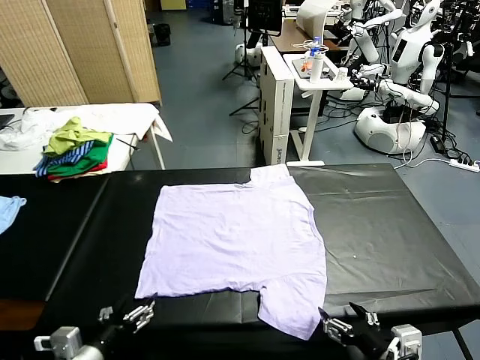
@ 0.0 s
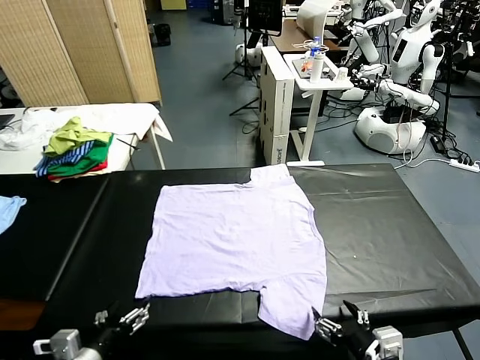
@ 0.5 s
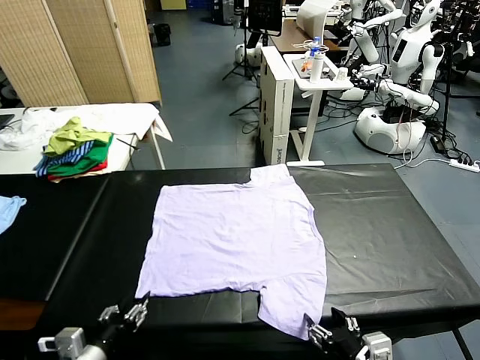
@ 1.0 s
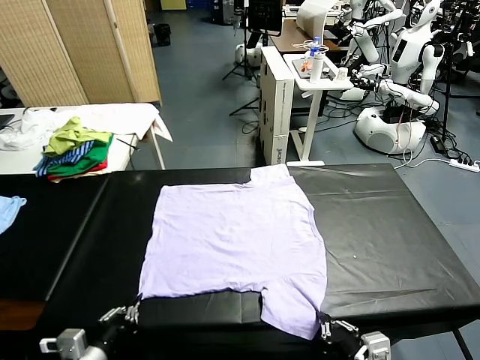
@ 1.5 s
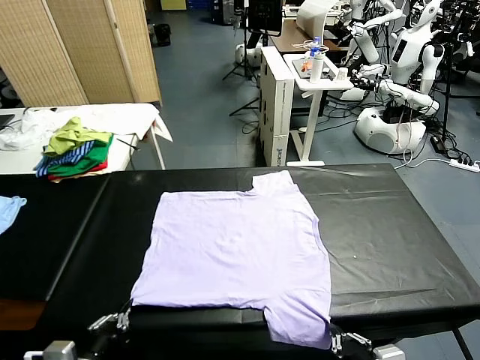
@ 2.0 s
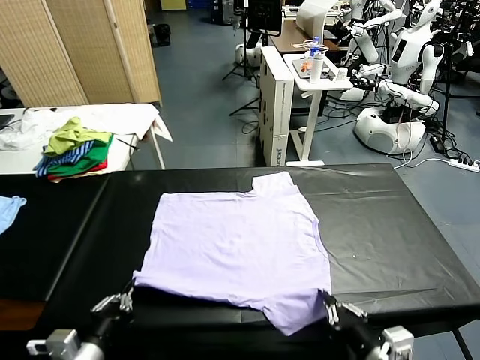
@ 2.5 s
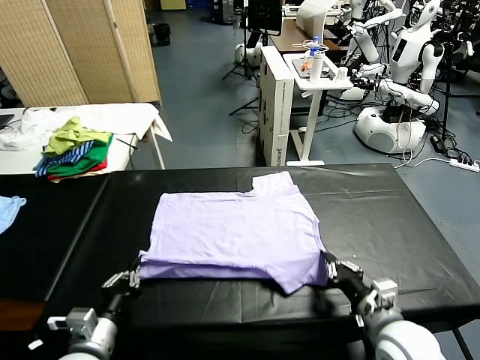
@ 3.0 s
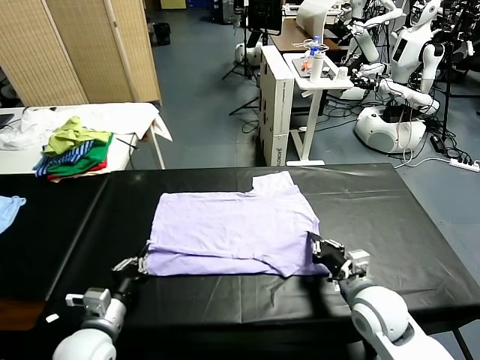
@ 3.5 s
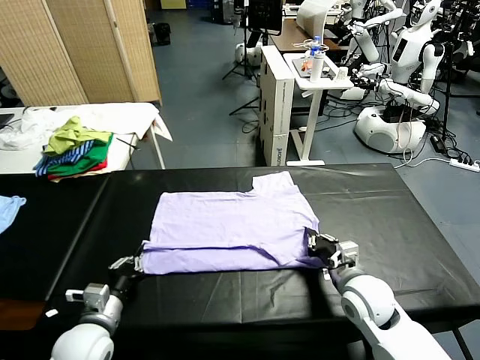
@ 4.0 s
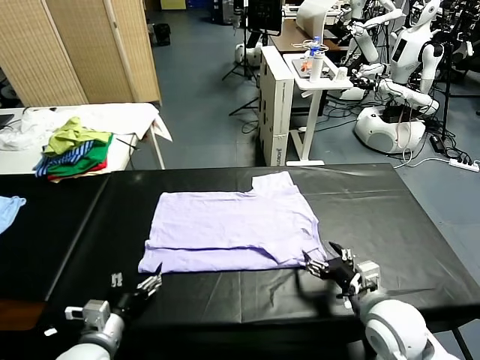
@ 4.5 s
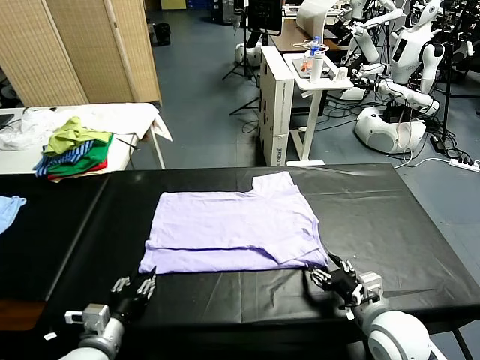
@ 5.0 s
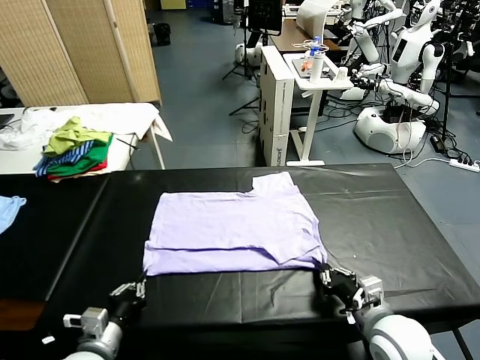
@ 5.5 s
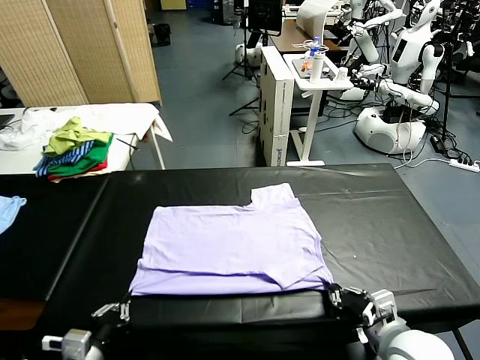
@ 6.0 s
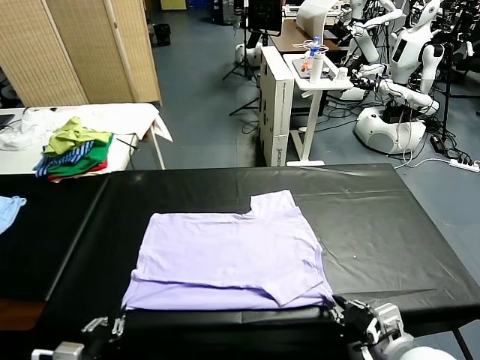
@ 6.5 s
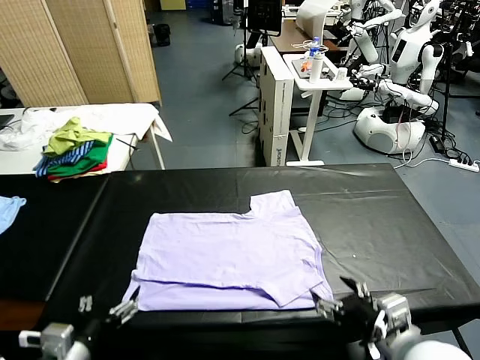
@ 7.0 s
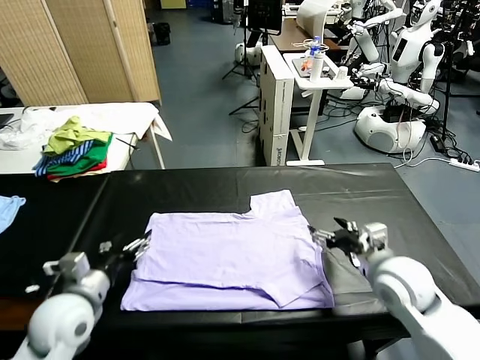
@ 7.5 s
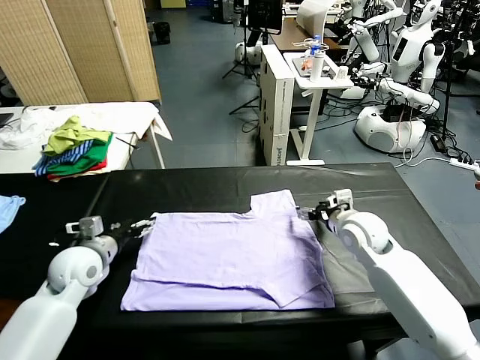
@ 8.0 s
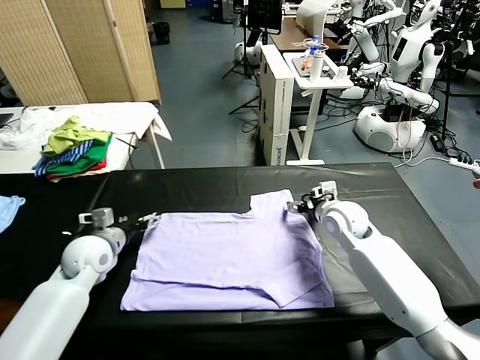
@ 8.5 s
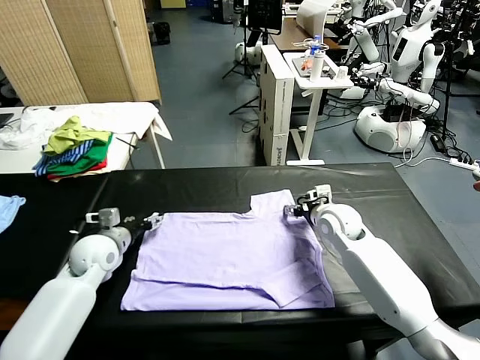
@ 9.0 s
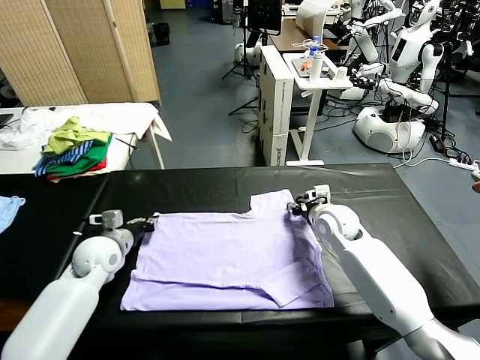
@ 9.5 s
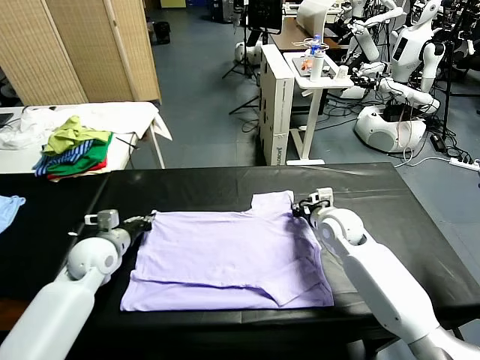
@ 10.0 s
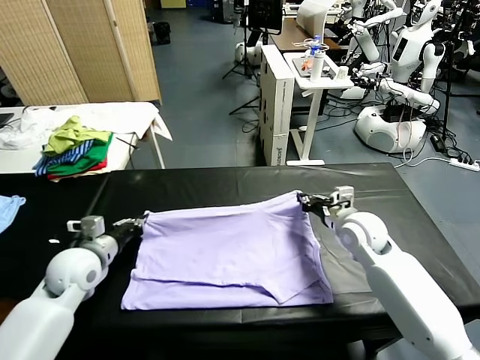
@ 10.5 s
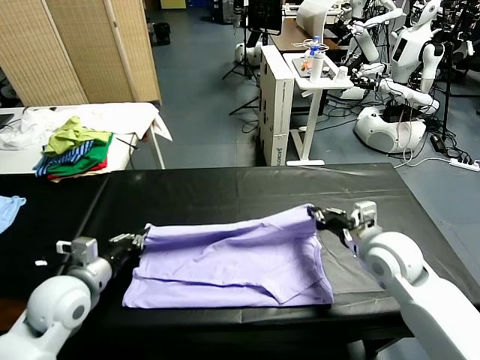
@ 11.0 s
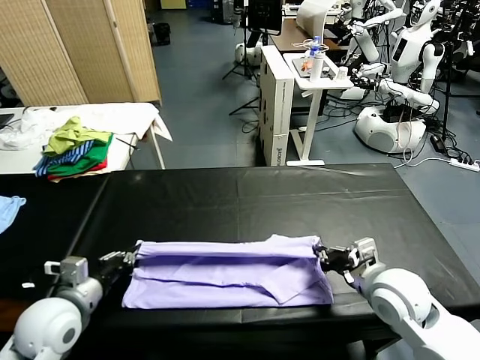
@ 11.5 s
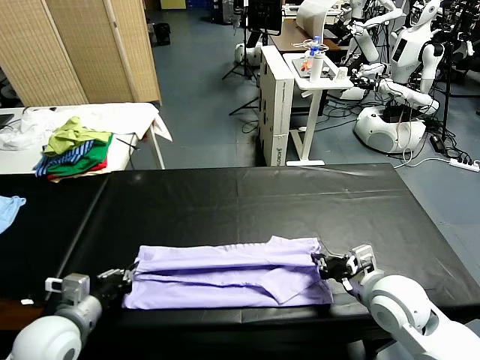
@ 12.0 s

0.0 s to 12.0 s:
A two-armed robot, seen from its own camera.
Task of the whole recording: fold and organize the clothes.
Step, 0.0 to 1.5 s: use both grippers simultaneously to clamp the lower edge of the clothing fabric.
Step, 2.0 to 4.0 s: use both grippers to drag the lower edge of the fabric forward and fold it over the upper edge.
Step, 5.0 to 6.5 s: Drag the clothes downward with both gripper.
Step, 7.0 to 10.0 s: use both grippers simultaneously to clamp the upper edge of the clothing fabric.
2.0 to 4.0 s: The right gripper moves forward, roughly 20 cm.
4.0 to 6.0 s: Both grippers travel together backward, roughly 10 cm. The right gripper opens, then closes once more. Meanwhile the left gripper opens, then closes once more.
6.0 to 8.0 s: The grippers both shift forward by some 25 cm. The left gripper opens its fingers, while the right gripper opens up.
8.0 to 10.0 s: The right gripper changes place by roughly 5 cm, and closes. Meanwhile the left gripper heads backward, covering about 5 cm, and closes.
10.0 to 12.0 s: Both grippers travel together backward, approximately 15 cm.

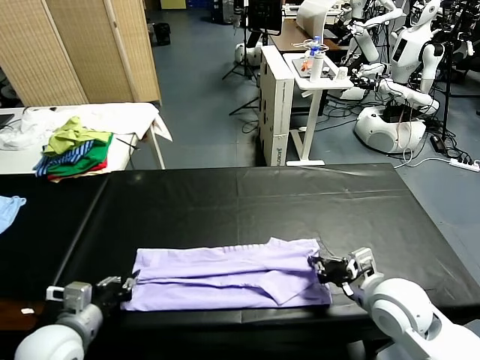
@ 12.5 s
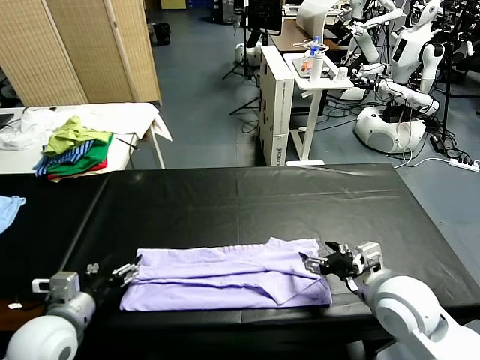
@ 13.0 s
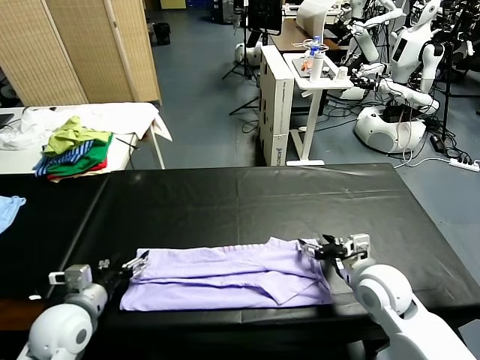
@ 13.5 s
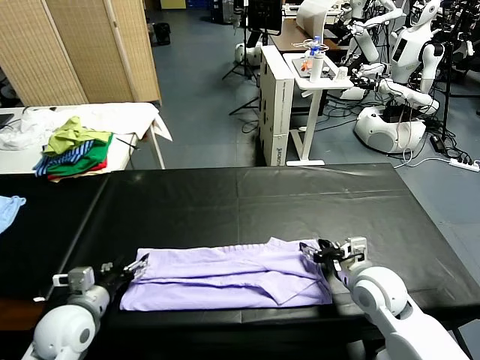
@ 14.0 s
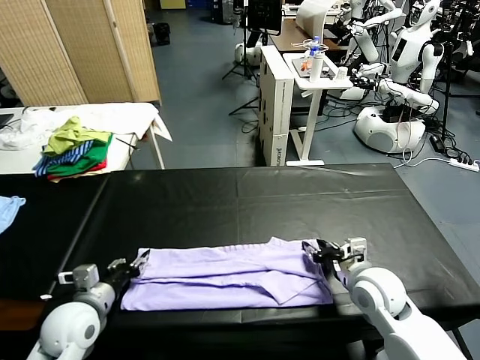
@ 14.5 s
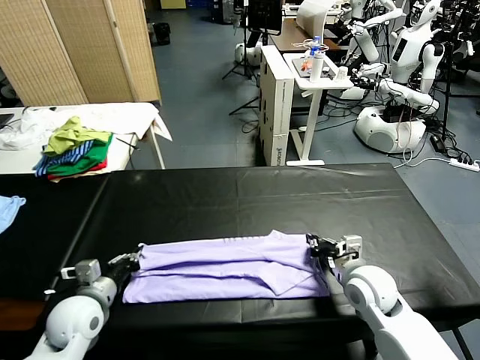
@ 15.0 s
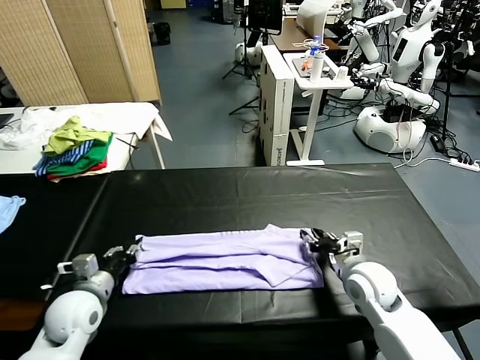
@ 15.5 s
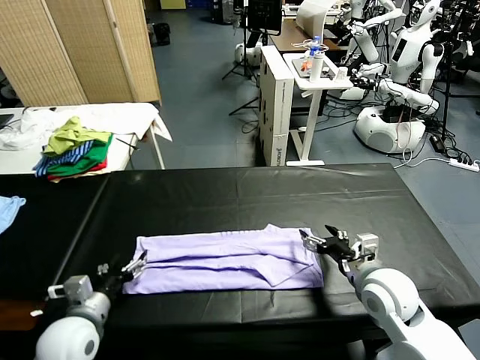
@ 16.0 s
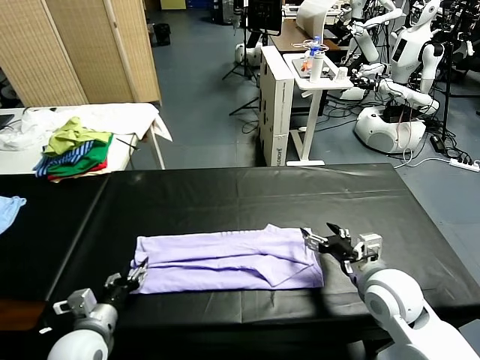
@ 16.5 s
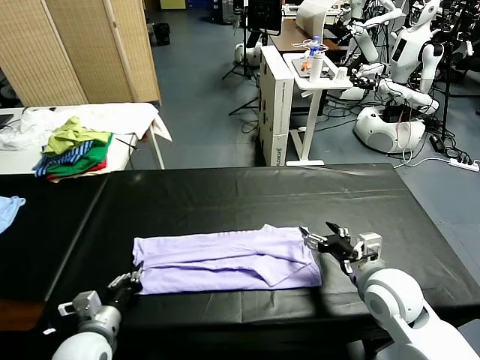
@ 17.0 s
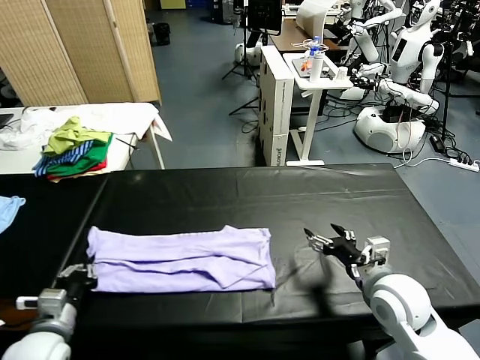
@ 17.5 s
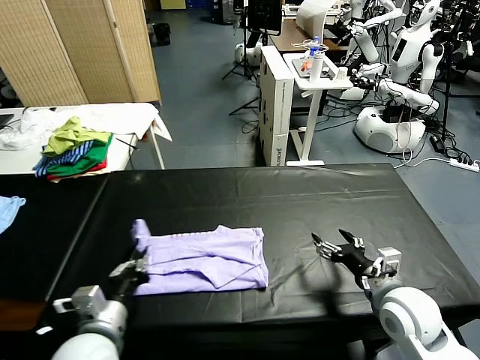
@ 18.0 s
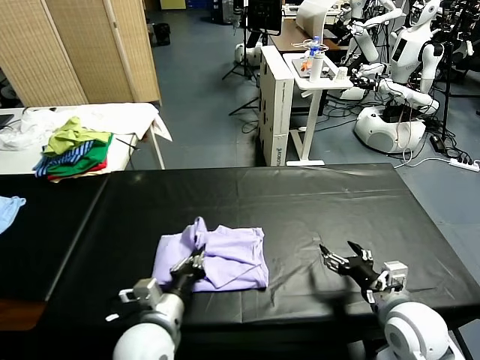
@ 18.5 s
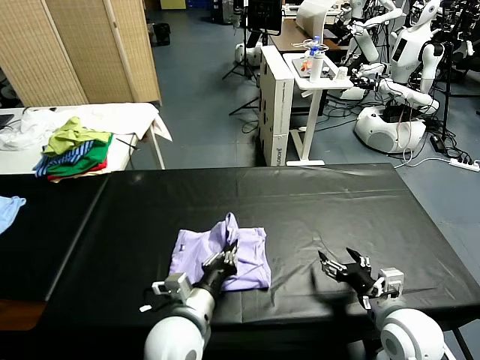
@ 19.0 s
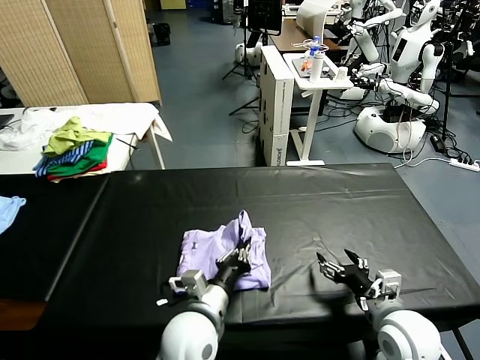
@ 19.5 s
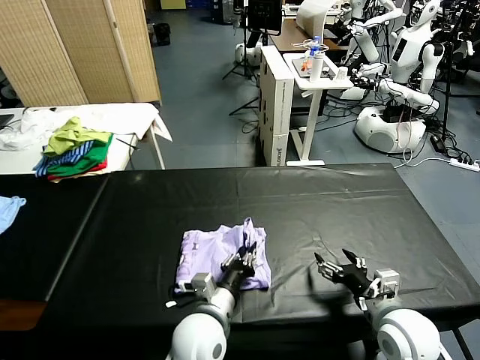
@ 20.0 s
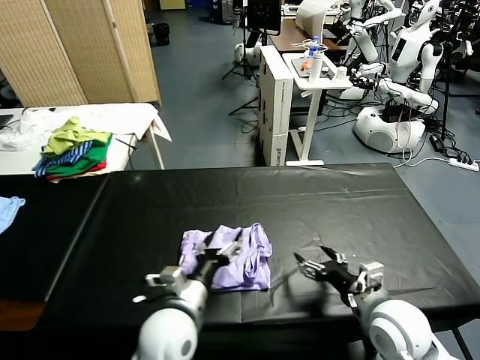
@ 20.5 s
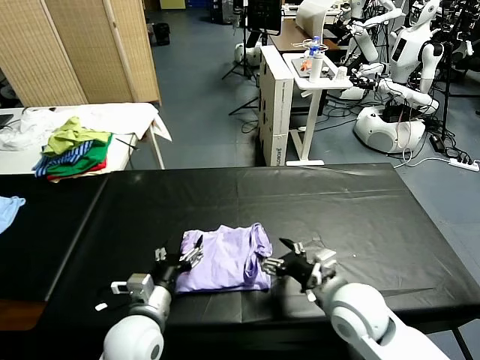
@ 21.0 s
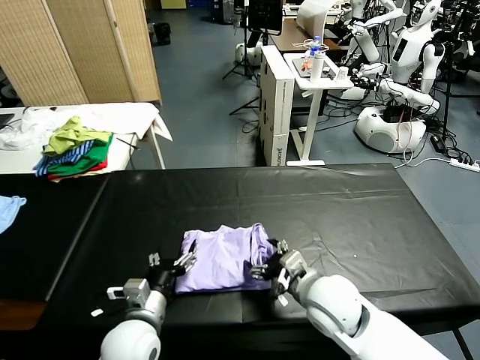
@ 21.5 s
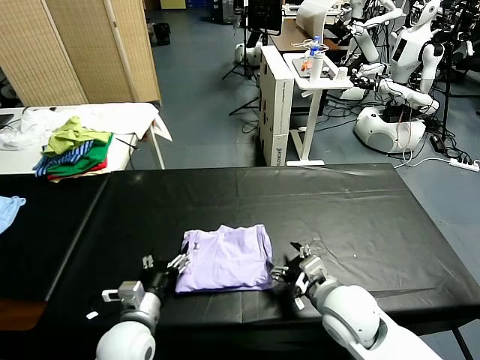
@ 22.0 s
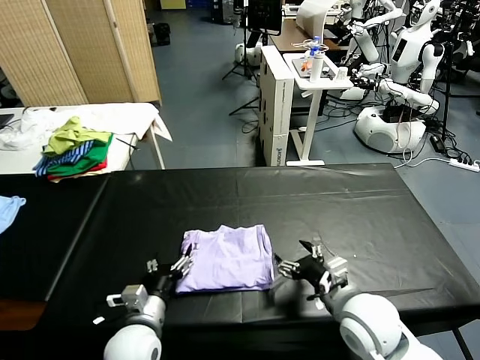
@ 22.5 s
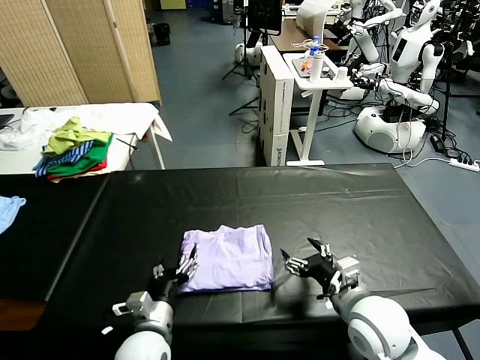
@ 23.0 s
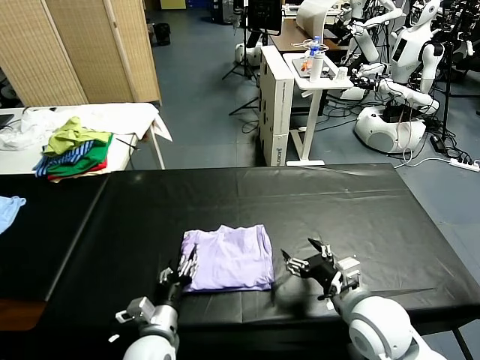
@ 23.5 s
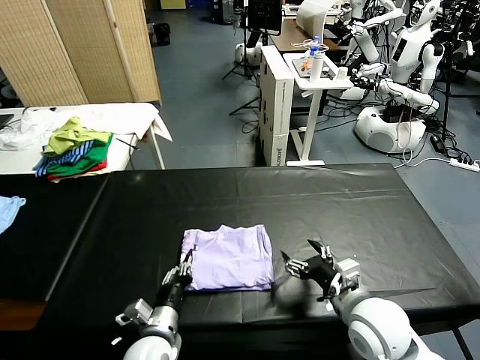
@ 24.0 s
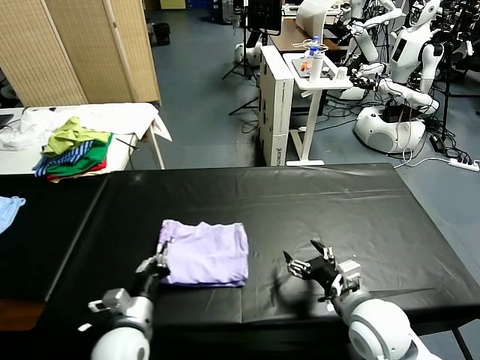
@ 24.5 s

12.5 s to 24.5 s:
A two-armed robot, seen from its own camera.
Task of the whole recording: fold and organize the clothes.
Step, 13.0 to 16.5 s: use the left gripper to clamp the left edge of the fabric.
Step, 17.0 to 20.0 s: use the left gripper to drag the left edge of the fabric to the left and folds it over the right edge.
12.5 to 14.5 s: The right gripper shifts by approximately 5 cm, and opens; the left gripper moves downward and forward, approximately 10 cm, and opens up.
14.5 to 16.5 s: The left gripper moves backward, approximately 5 cm, and closes, then reopens. The right gripper opens.
16.5 to 18.5 s: The left gripper moves to the right, roughly 15 cm, and closes, while the right gripper shifts roughly 5 cm backward.
18.5 to 20.5 s: The left gripper moves roughly 5 cm, and opens up.
20.5 to 22.5 s: The left gripper shifts some 5 cm downward, while the right gripper heads to the left, covering some 5 cm.
22.5 to 24.5 s: The left gripper heads to the left, covering roughly 5 cm, and closes its fingers.

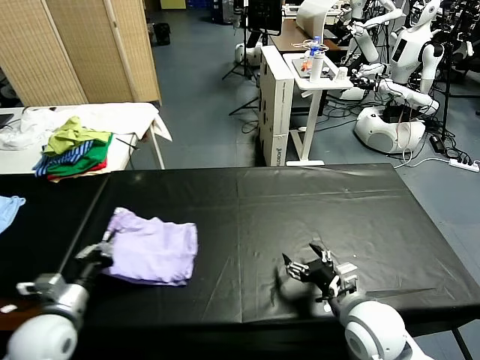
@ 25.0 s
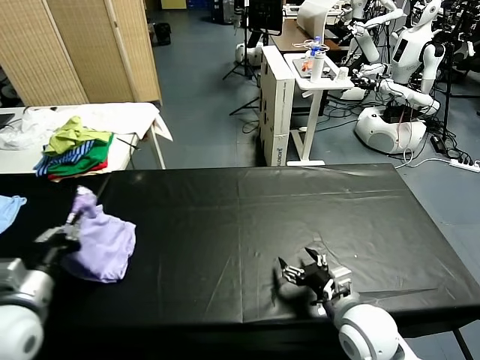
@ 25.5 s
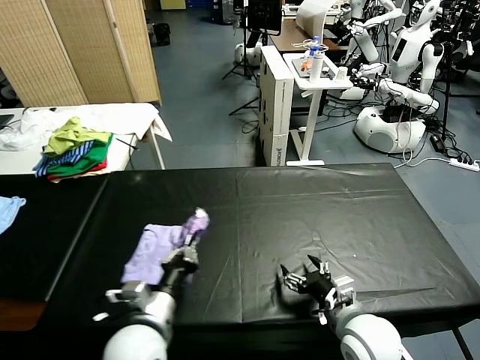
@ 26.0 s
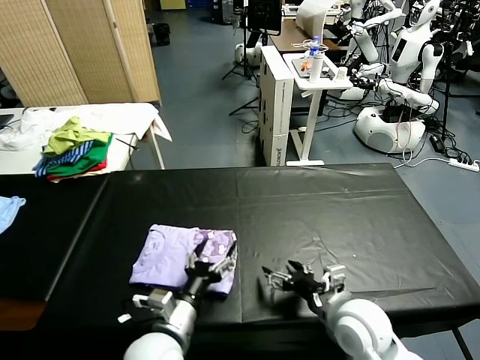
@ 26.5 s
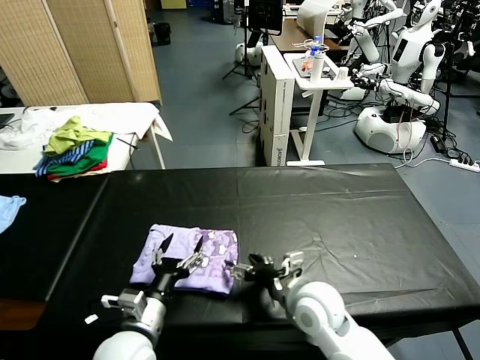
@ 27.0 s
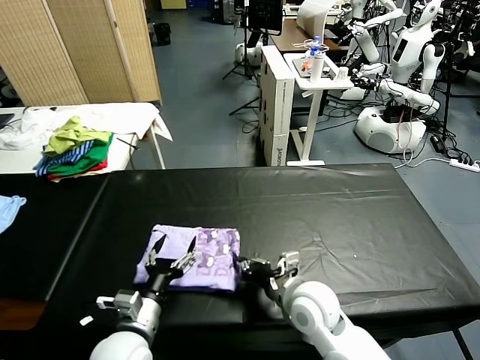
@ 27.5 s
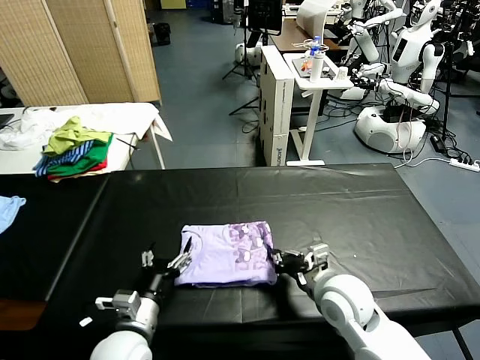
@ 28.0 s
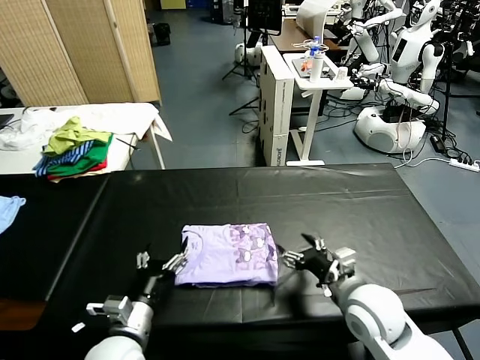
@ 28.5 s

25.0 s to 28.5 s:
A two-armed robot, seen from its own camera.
Task of the whole recording: fold and organize the clothes.
Step, 27.0 to 28.0 s: Drag the clothes to the center of the table.
25.0 to 27.0 s: The right gripper shifts about 10 cm to the left. Meanwhile the left gripper heads to the right, covering roughly 20 cm, and opens.
27.0 to 28.5 s: The right gripper heads to the right, covering some 10 cm, and closes and opens again.
